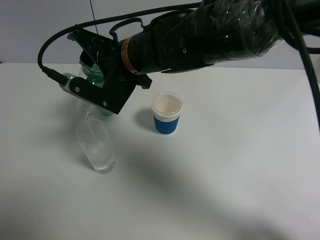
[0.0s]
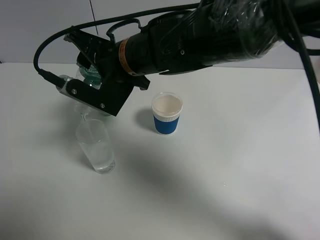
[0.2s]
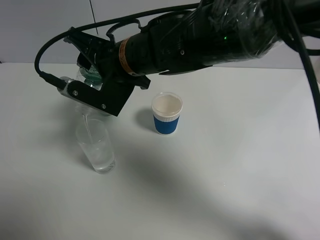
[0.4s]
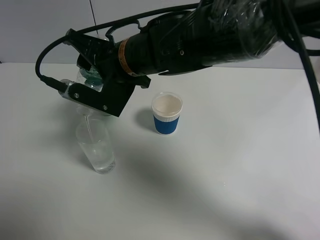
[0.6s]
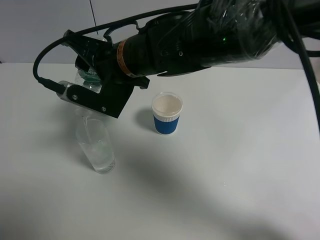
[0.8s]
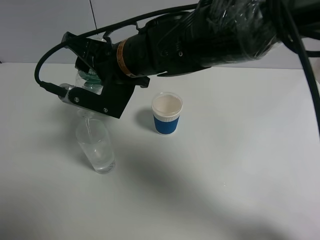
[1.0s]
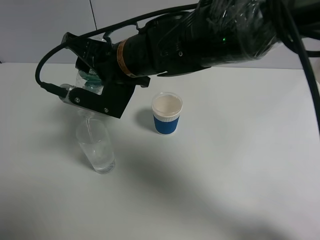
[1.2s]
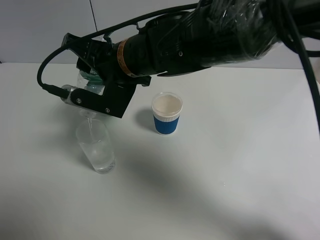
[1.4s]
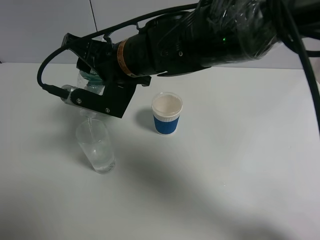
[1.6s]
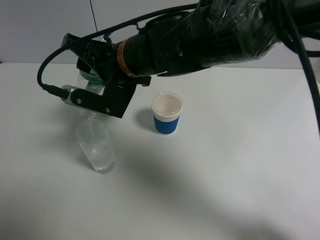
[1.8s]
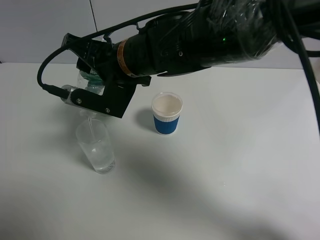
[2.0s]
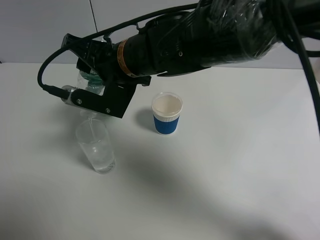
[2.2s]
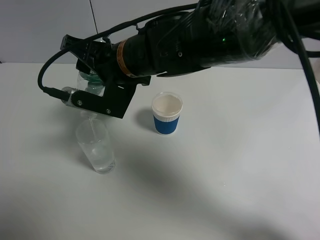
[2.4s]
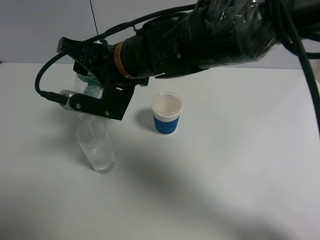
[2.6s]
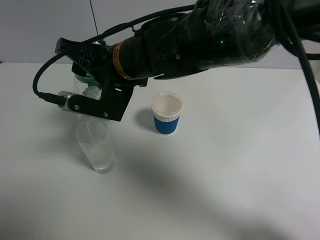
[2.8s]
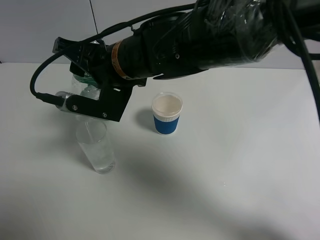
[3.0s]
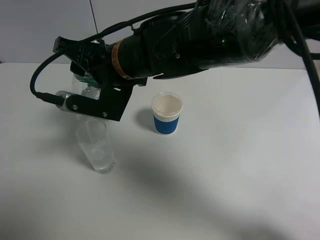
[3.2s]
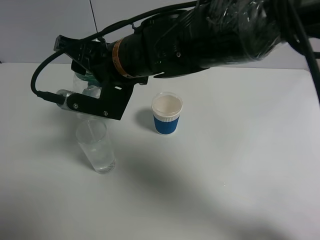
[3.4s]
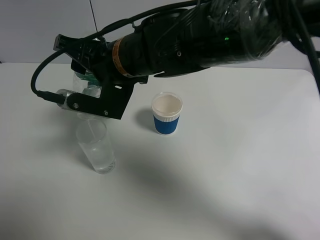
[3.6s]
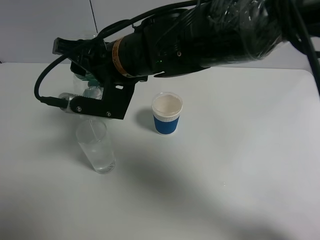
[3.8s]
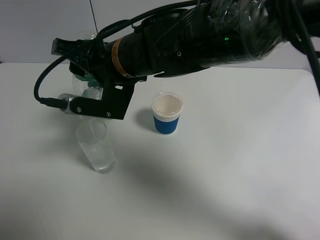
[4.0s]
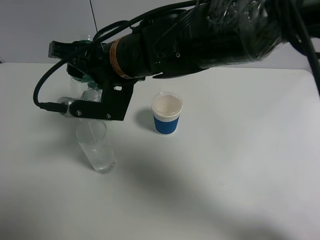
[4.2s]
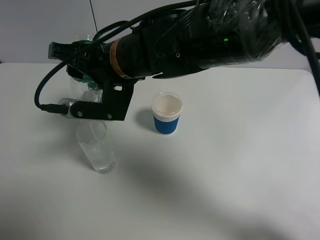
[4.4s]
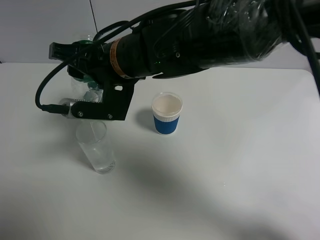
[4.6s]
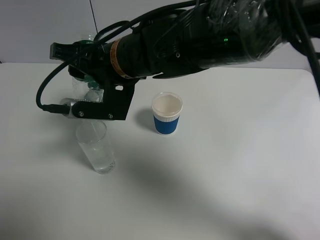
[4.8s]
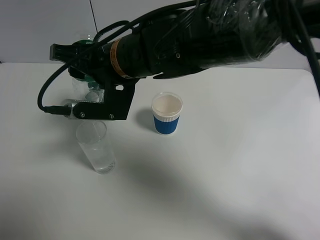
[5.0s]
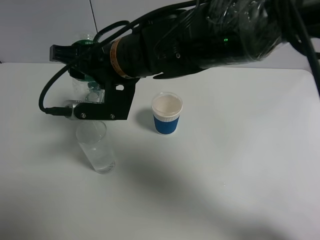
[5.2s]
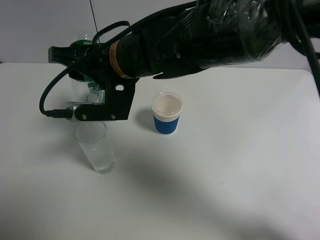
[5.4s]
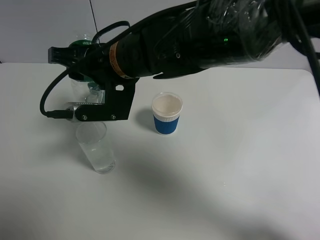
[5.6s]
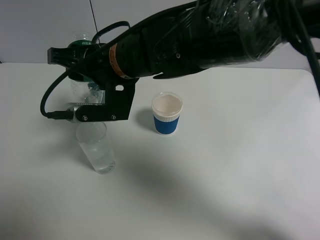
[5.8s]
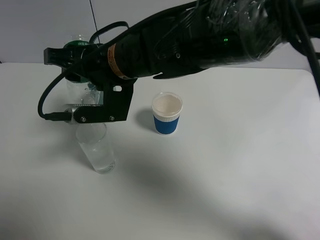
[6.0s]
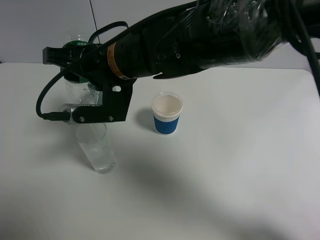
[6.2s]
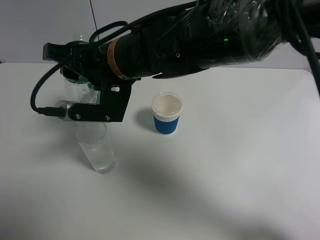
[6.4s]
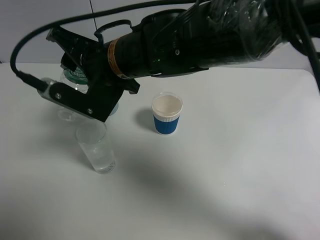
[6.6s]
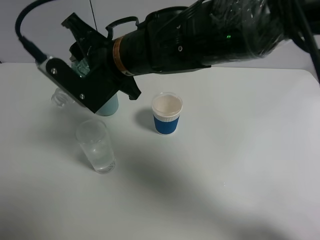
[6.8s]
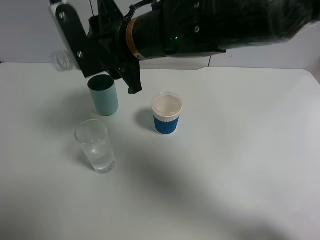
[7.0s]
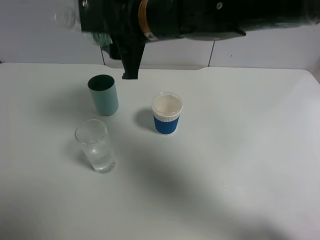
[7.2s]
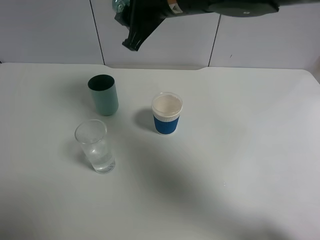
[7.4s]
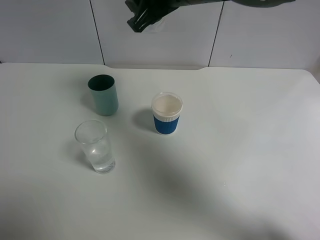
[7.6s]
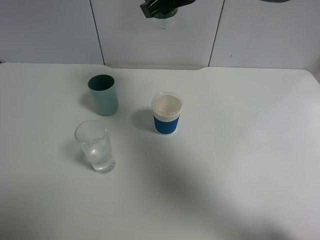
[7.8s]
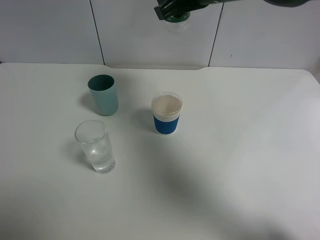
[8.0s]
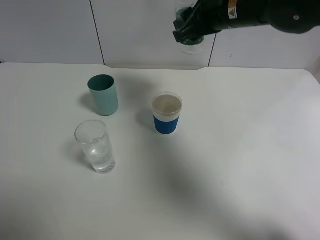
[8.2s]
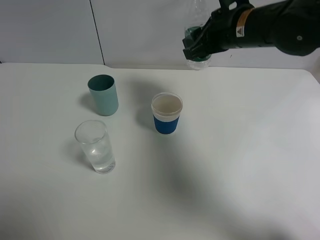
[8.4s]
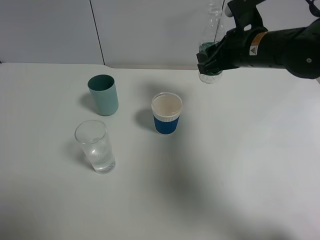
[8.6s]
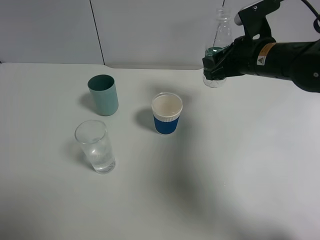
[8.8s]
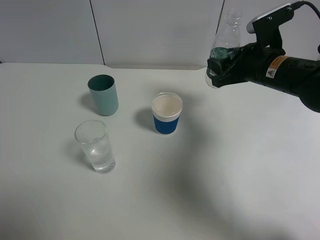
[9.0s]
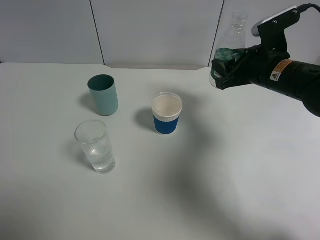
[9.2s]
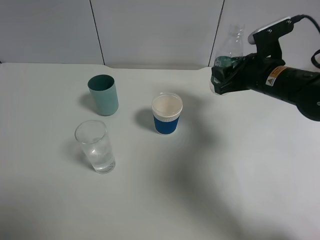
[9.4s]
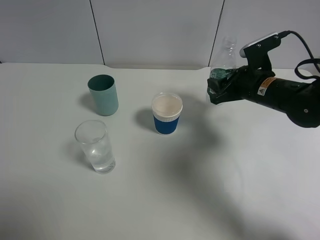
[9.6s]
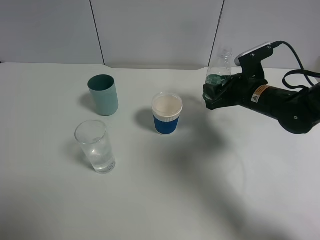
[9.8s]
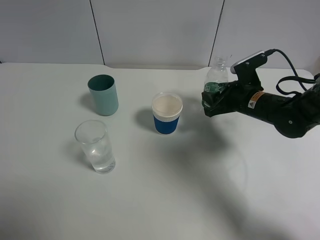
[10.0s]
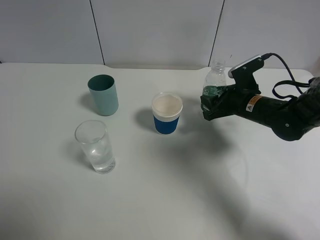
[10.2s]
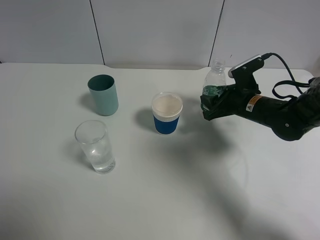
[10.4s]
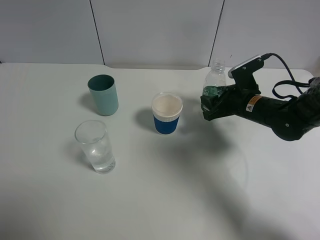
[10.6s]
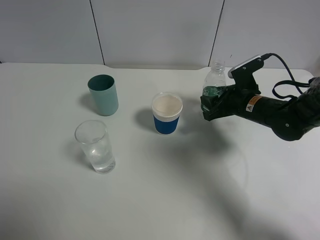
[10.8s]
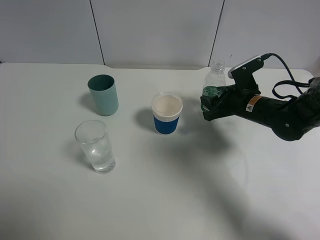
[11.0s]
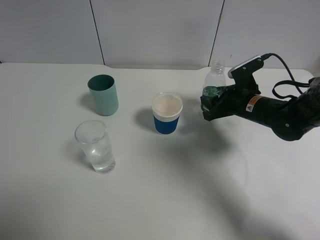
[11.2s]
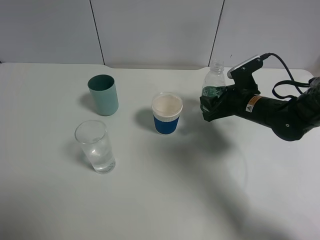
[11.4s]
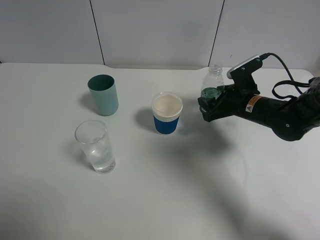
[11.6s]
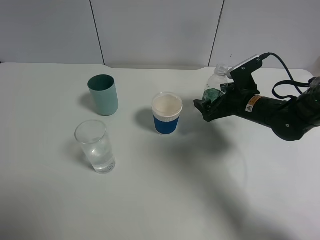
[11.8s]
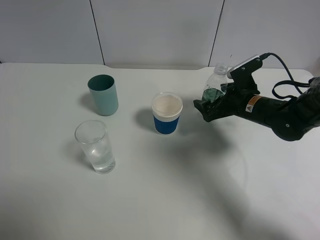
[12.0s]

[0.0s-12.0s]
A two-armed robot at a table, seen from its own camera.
Task of the whole recording: use a gripper to hold the bottle of the drink and pour it into a random cup.
Step, 0.0s to 7.0s: Pour the mineral water into the glass with the right gripper.
0.0s to 1.6s: There are only small adjustments of the grippers.
1.6s to 3.0s: The two grippers keep their place.
3.0s to 6.0s: The grippers move only a little.
6.0s to 7.6s: The right gripper goes roughly 15 cm to the right, upward and forward.
7.6s to 9.0s: The right gripper moves to the right and downward, approximately 20 cm.
9.0s to 10.4s: The right gripper goes roughly 10 cm downward.
10.4s to 12.0s: The right gripper opens.

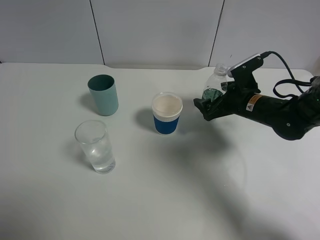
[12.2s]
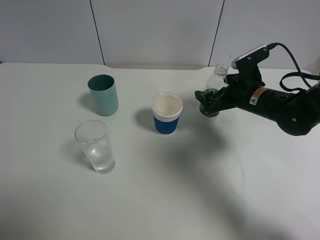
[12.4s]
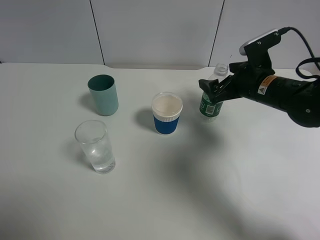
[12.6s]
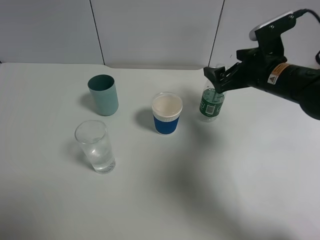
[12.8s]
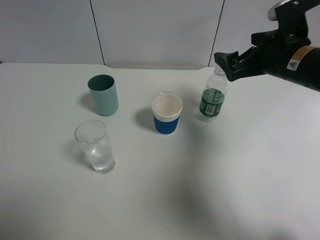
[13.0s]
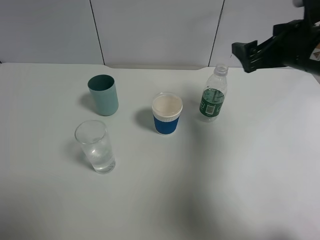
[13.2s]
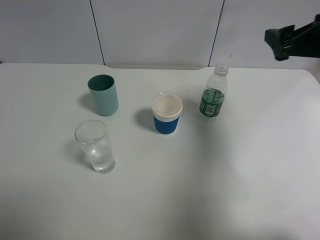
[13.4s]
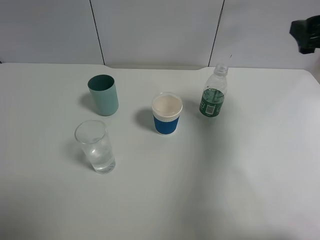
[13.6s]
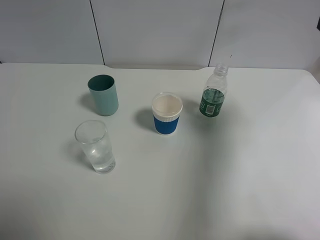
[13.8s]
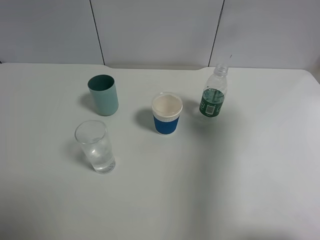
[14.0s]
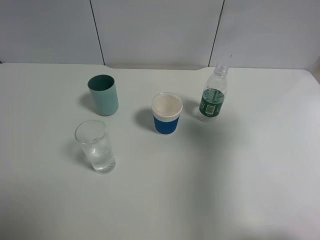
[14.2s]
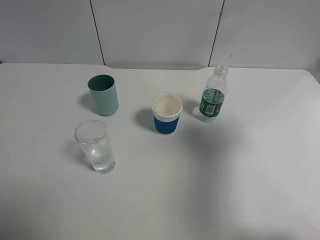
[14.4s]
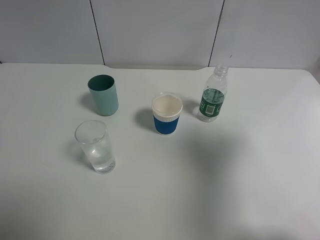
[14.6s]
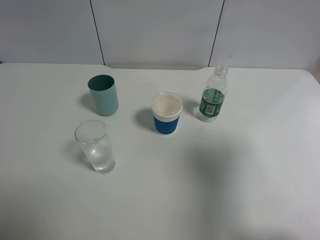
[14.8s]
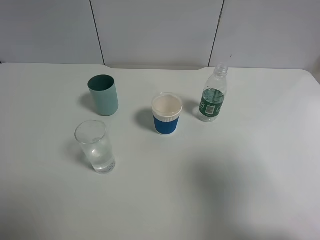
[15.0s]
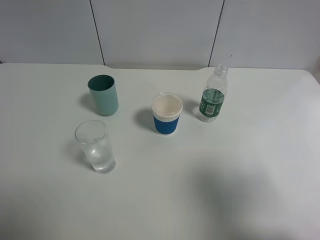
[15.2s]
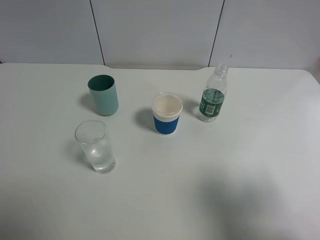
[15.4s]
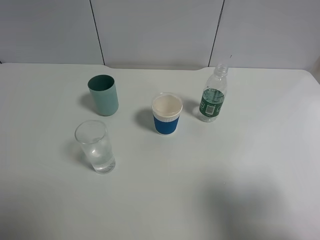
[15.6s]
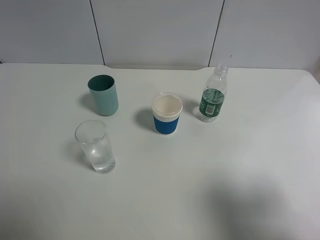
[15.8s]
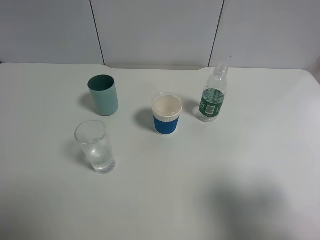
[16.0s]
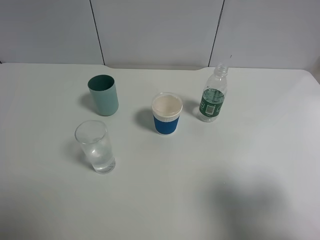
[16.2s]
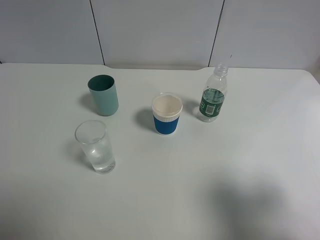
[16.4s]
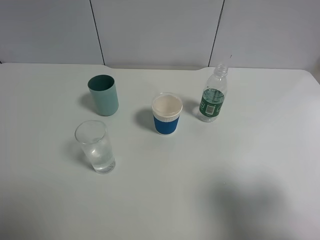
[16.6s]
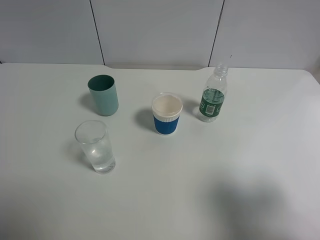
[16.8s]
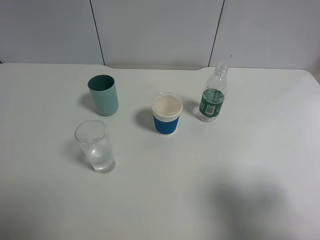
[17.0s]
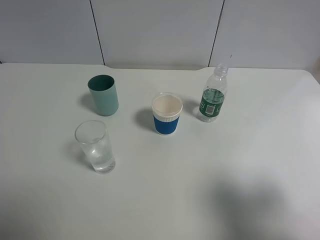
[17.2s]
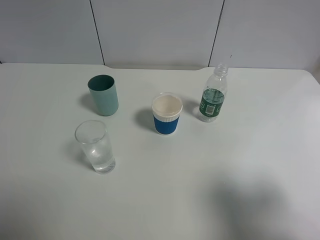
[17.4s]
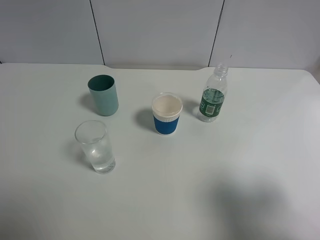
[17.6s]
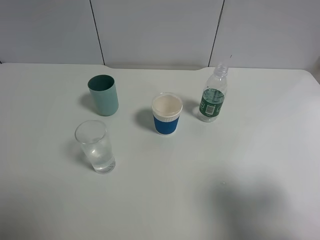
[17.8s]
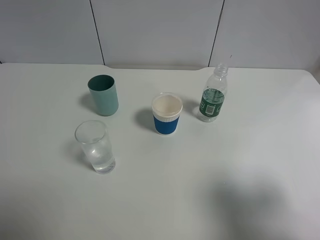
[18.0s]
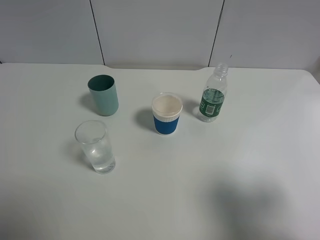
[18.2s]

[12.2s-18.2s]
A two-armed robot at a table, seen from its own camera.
Task of the whole recording: use a gripper to hold the bottle of the drink and pour it into a random cup.
12.2s to 13.8s: The right gripper shifts approximately 25 cm upward, backward and to the right.
13.8s to 15.2s: The right gripper is displaced backward by about 20 cm.
15.2s to 16.6s: There are only small adjustments of the grippers.
16.6s to 18.2s: The two grippers keep their place.

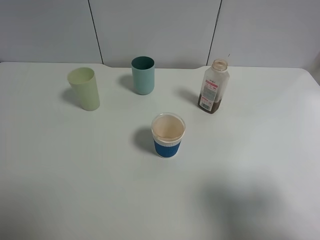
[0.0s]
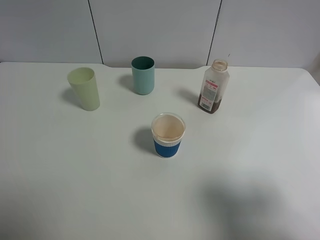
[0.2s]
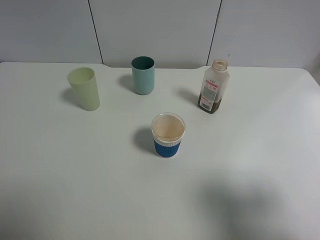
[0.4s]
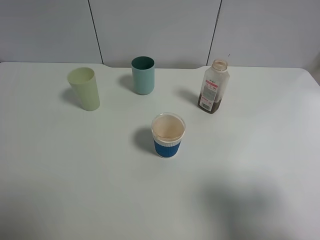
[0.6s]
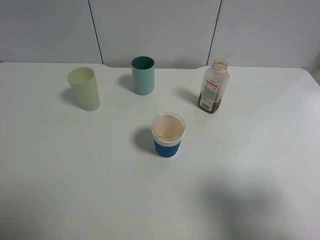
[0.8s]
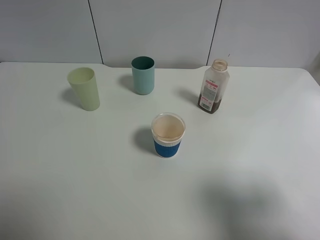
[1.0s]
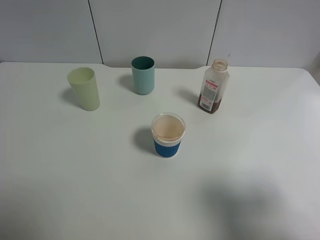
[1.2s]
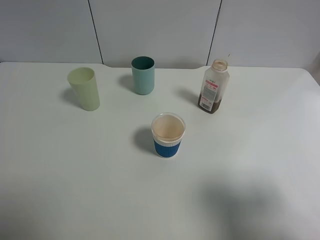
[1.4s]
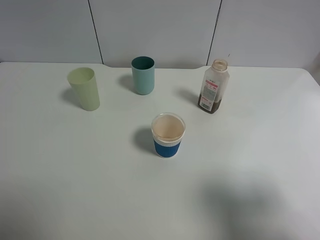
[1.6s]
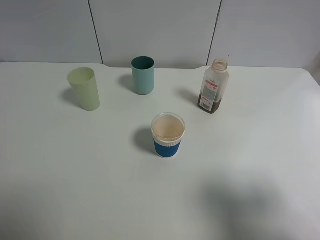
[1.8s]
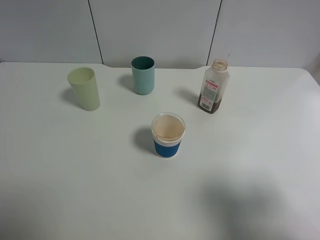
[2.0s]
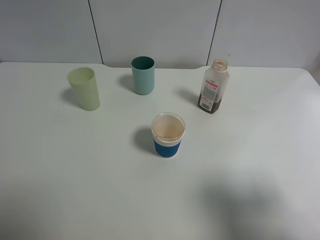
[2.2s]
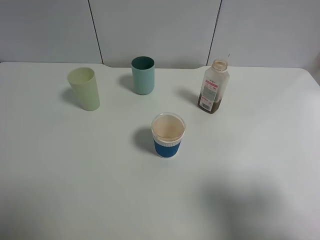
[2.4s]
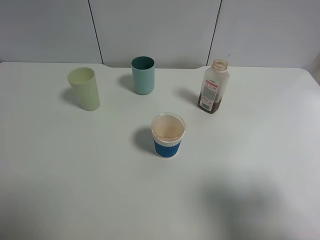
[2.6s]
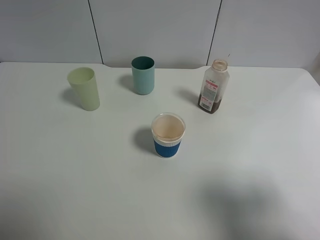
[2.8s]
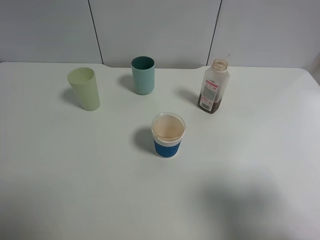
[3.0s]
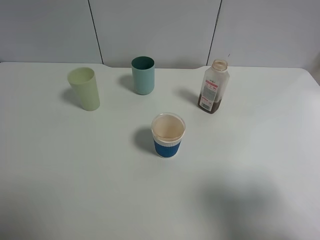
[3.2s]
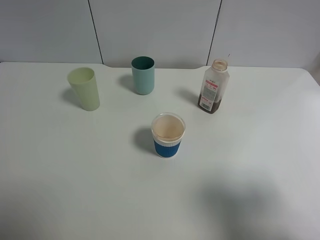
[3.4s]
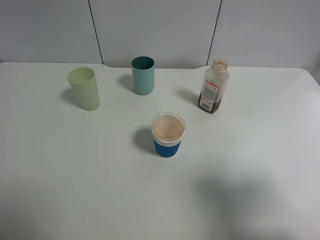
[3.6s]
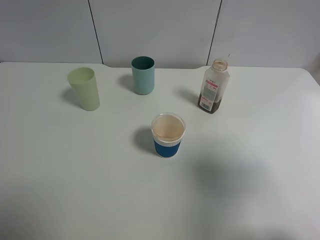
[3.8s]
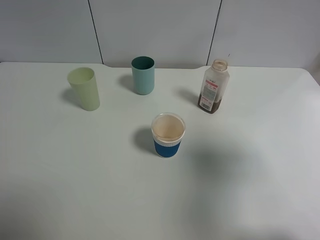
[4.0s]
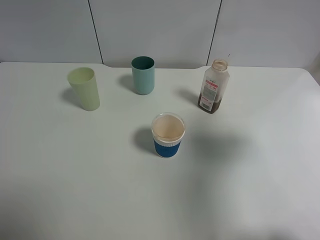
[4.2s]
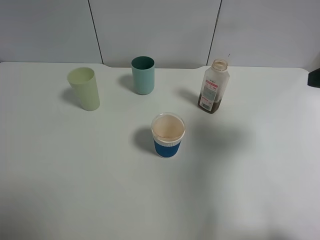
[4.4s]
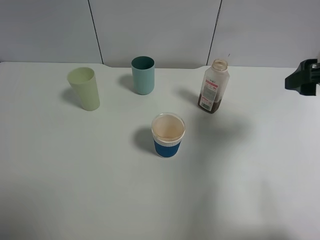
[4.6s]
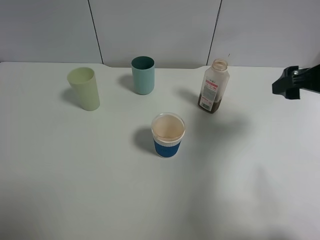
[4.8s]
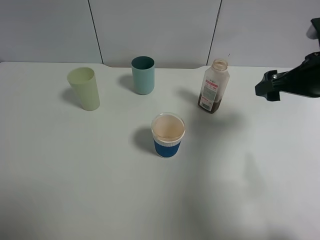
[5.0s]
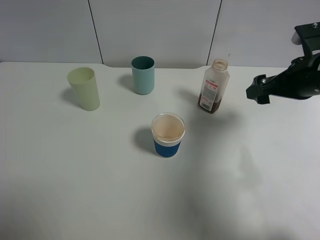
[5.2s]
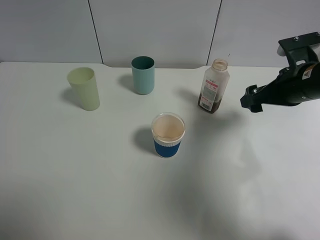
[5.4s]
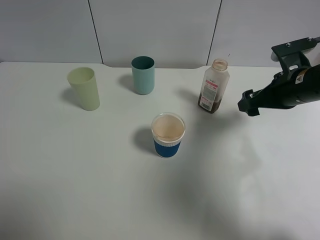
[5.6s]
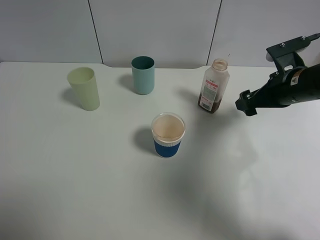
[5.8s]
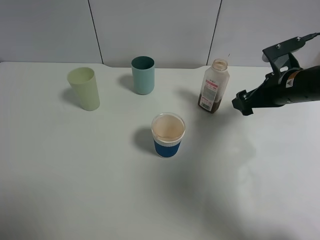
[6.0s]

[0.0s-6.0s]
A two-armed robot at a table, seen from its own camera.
Task of the whole recording: use a gripper to hold the bottle of the drink and pour it into a random cup.
0.0s to 3.0s: Neither gripper changes place.
3.0s to 4.4s: The right gripper shifts about 15 cm forward.
4.4s to 6.0s: The right gripper heads downward and forward, covering some 20 cm.
